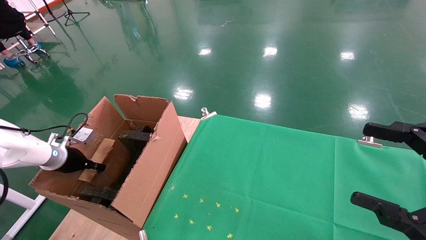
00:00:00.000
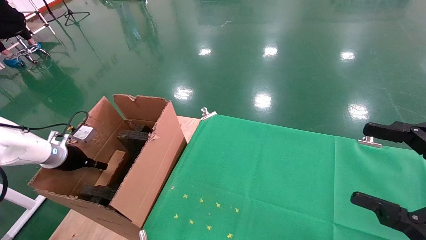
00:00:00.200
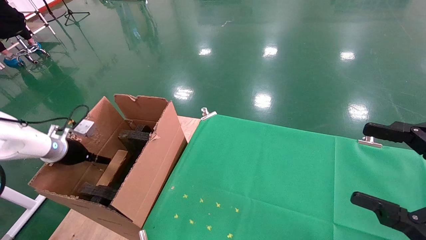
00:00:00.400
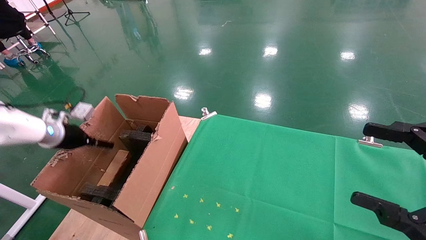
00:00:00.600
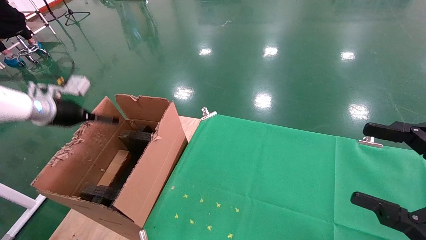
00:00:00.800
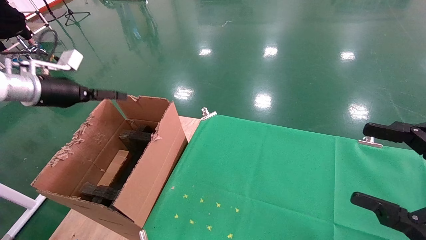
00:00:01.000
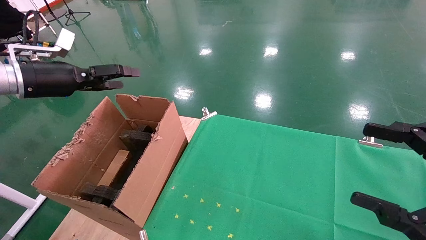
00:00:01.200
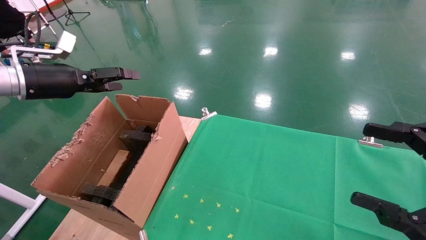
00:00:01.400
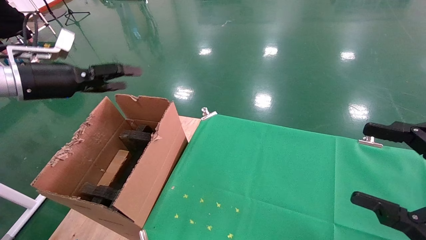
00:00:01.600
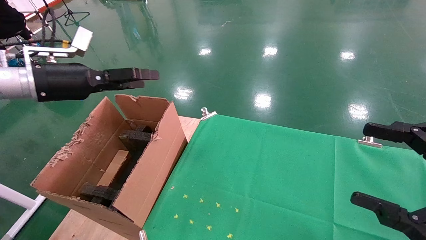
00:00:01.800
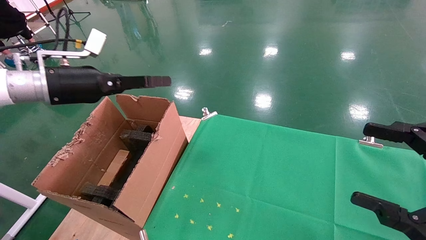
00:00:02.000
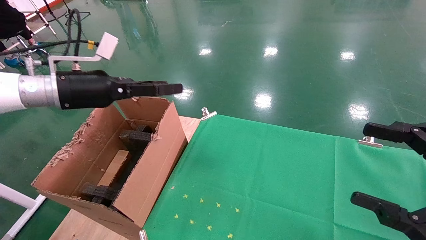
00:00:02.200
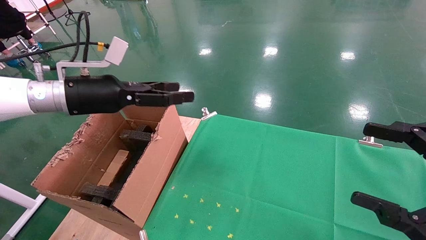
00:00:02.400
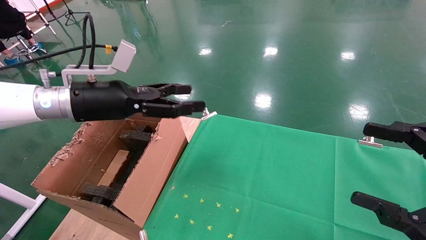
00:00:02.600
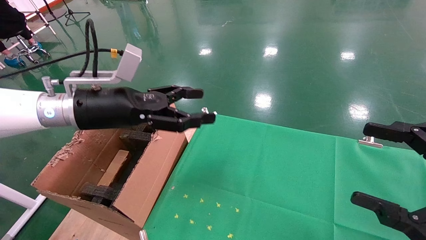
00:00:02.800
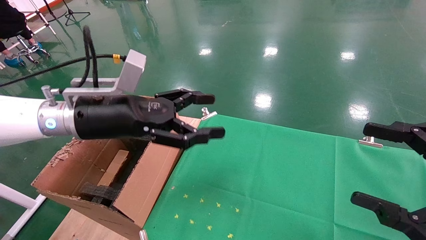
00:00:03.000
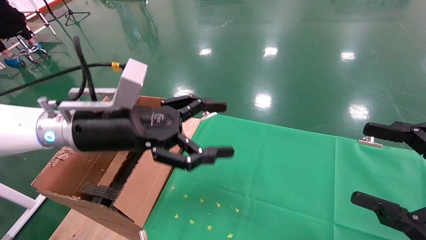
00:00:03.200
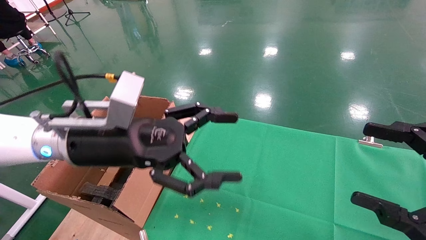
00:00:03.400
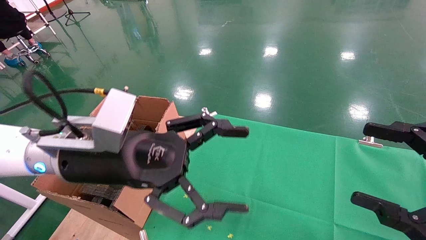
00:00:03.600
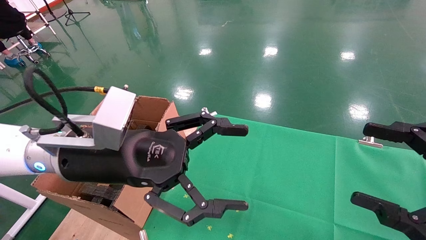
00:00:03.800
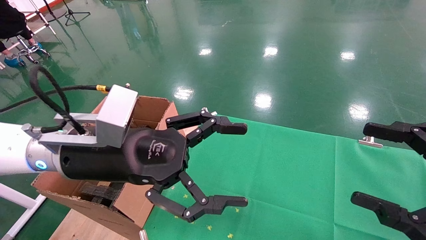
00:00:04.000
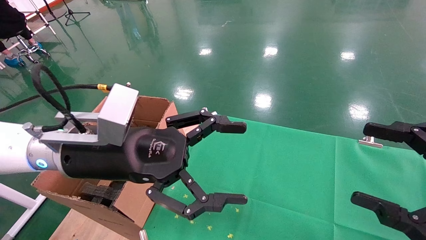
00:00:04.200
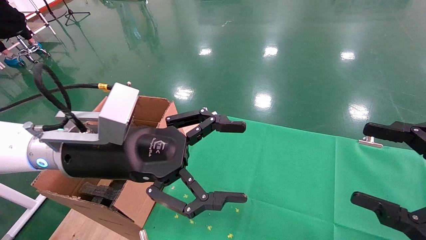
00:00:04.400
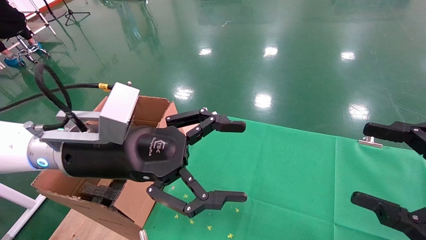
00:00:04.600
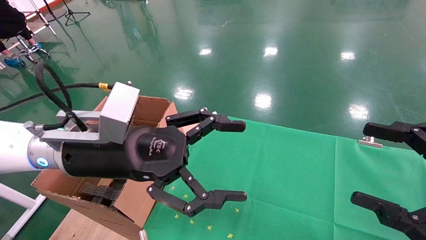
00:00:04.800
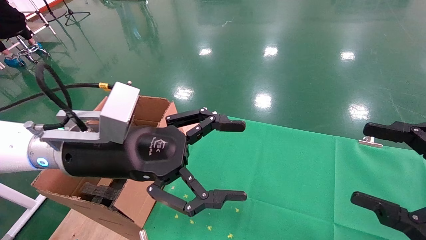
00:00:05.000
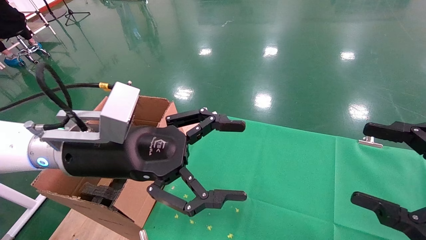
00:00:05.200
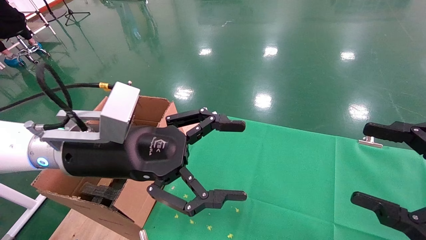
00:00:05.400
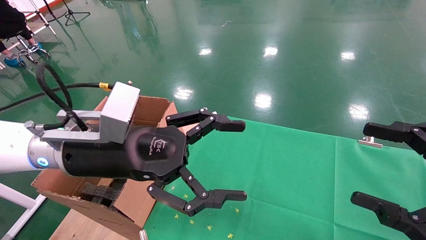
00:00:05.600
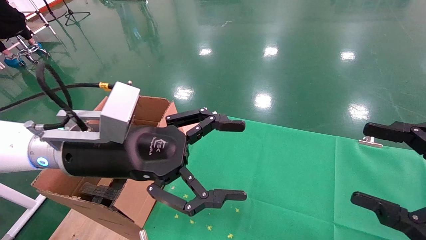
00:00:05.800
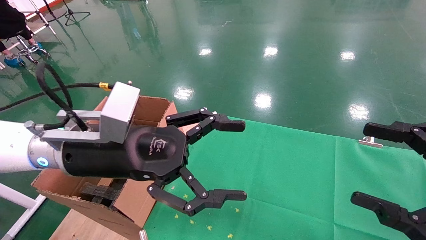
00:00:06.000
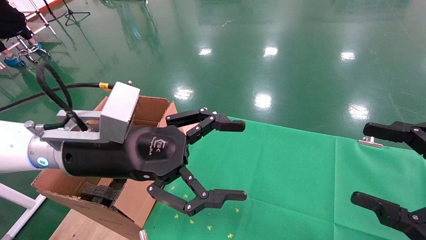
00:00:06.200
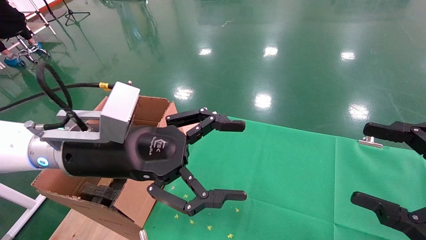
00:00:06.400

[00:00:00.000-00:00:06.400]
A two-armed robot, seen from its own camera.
Task of the whole recording: using a robotic arm to pick up a cardboard box and palace it the carton.
00:00:00.000 to 00:00:01.600: The left gripper is displaced upward and to the right by roughly 25 cm, and opens.
00:00:01.600 to 00:00:03.200: The left gripper travels to the right by about 20 cm.
00:00:03.200 to 00:00:04.800: The grippers stay close to where they were, moving slightly.
00:00:04.800 to 00:00:06.400: The two grippers keep their place.

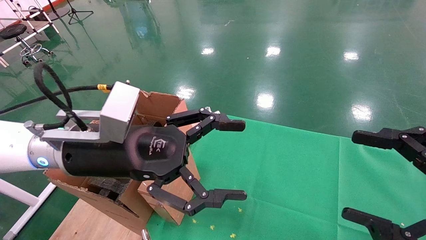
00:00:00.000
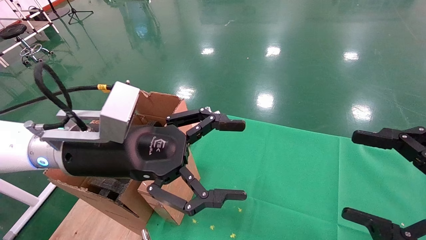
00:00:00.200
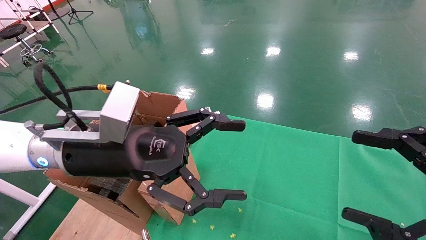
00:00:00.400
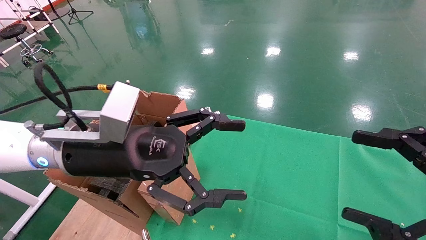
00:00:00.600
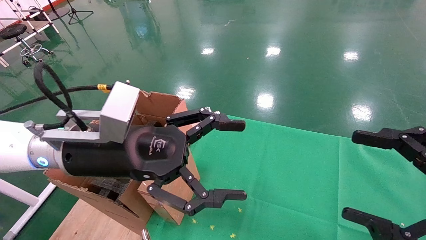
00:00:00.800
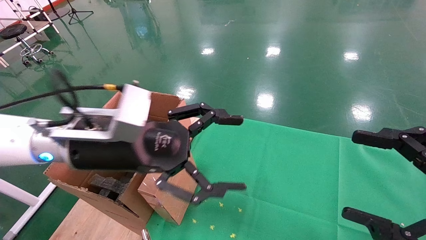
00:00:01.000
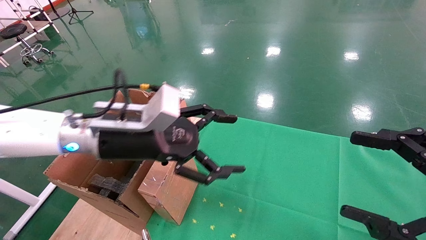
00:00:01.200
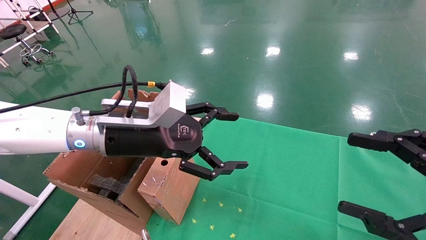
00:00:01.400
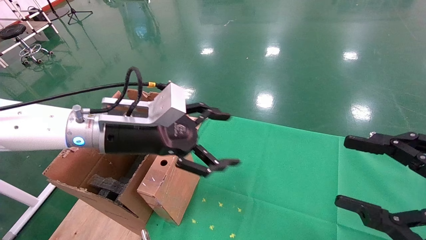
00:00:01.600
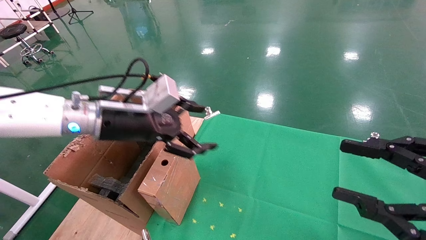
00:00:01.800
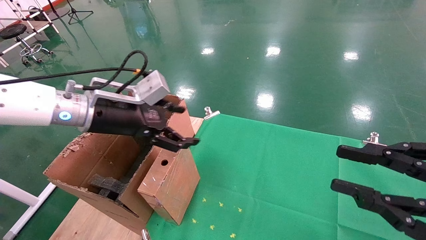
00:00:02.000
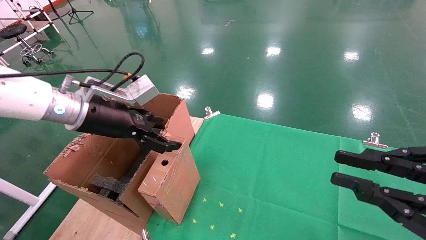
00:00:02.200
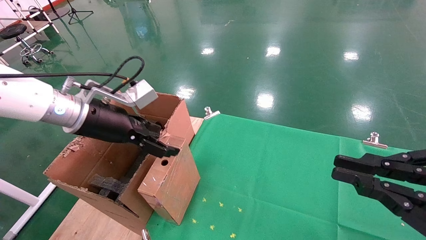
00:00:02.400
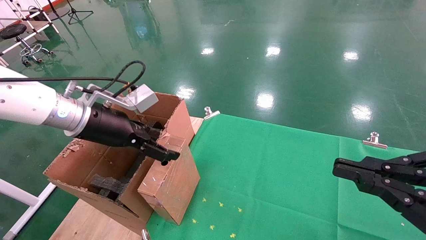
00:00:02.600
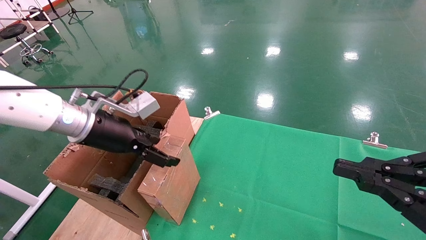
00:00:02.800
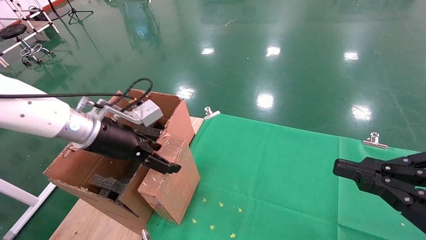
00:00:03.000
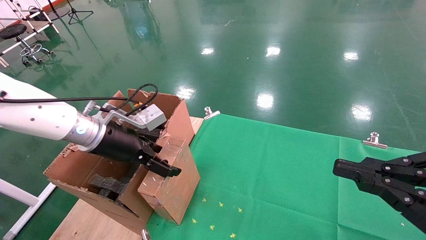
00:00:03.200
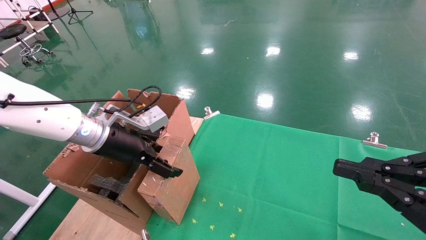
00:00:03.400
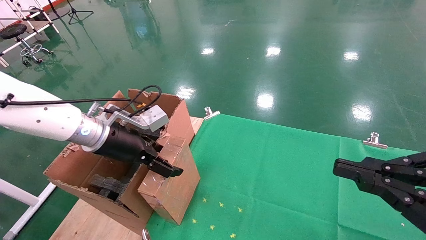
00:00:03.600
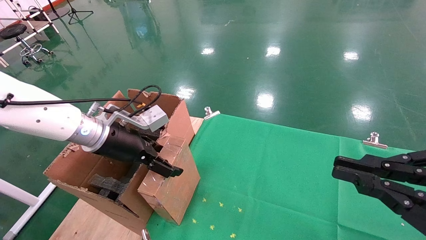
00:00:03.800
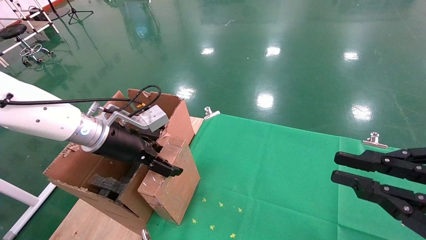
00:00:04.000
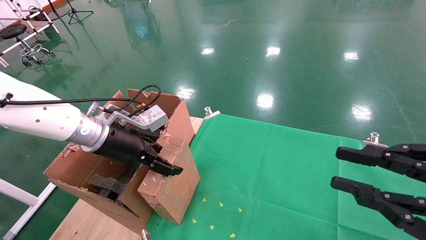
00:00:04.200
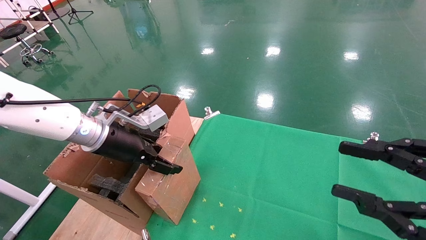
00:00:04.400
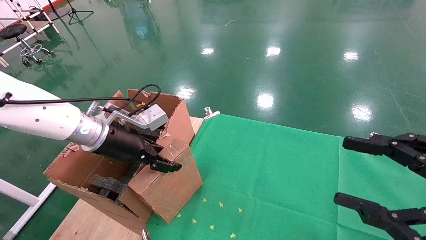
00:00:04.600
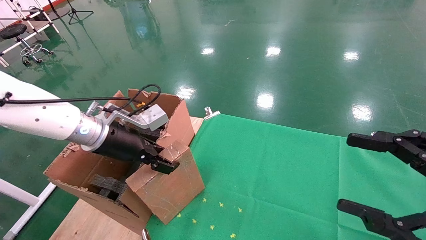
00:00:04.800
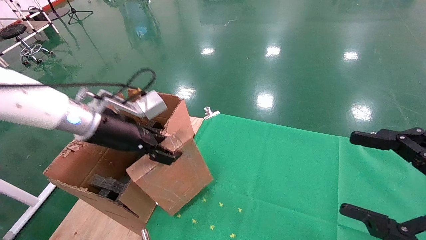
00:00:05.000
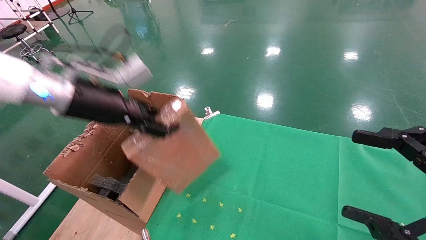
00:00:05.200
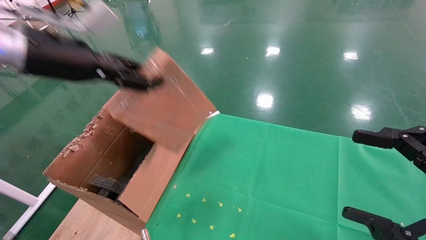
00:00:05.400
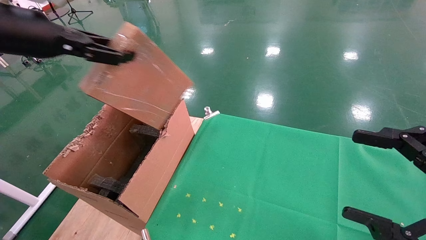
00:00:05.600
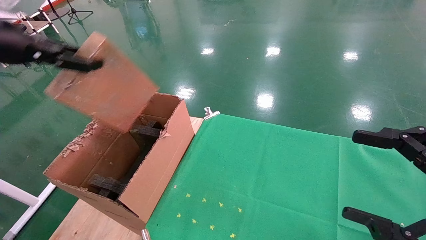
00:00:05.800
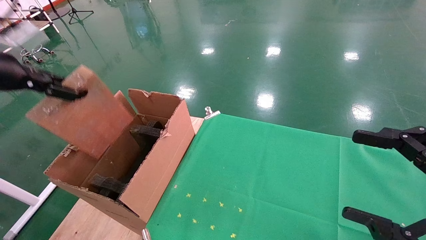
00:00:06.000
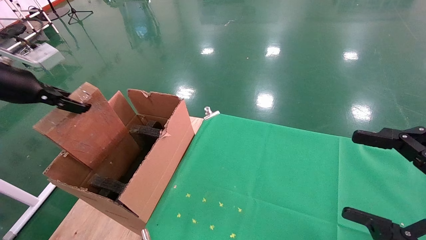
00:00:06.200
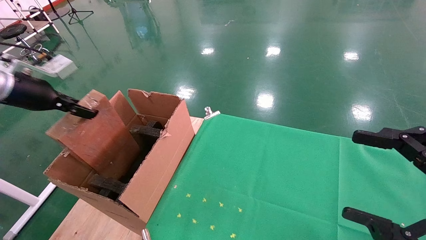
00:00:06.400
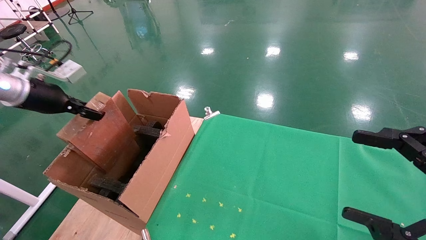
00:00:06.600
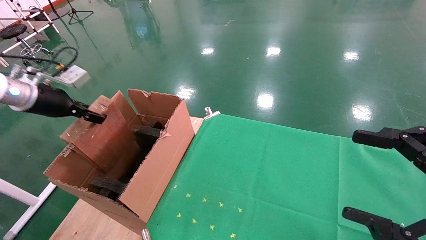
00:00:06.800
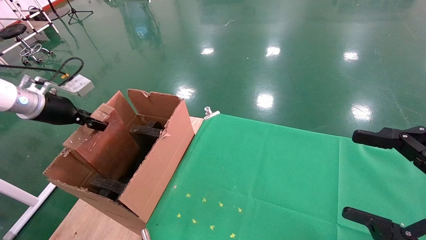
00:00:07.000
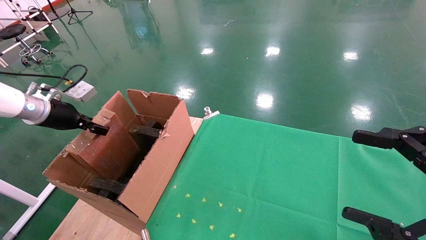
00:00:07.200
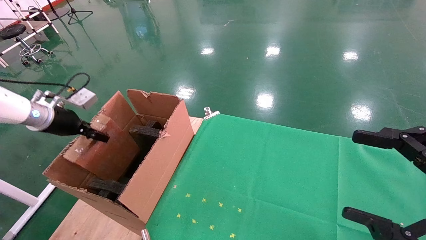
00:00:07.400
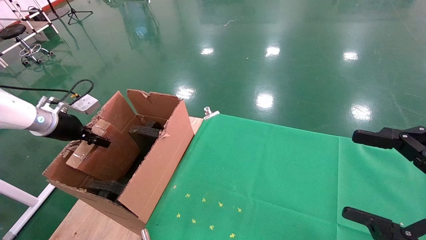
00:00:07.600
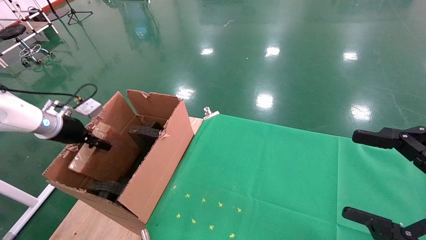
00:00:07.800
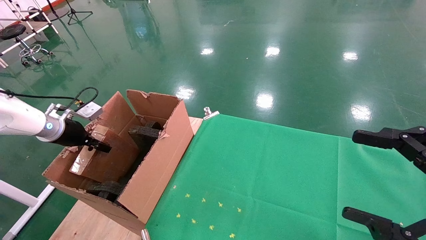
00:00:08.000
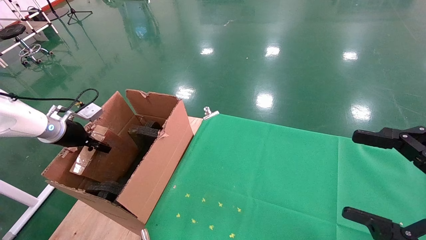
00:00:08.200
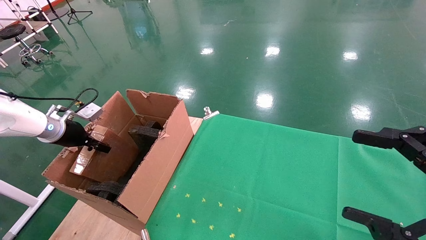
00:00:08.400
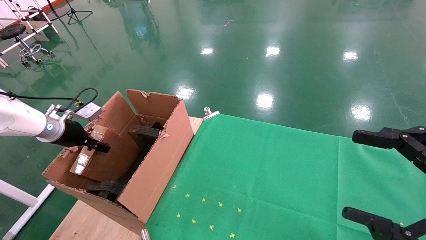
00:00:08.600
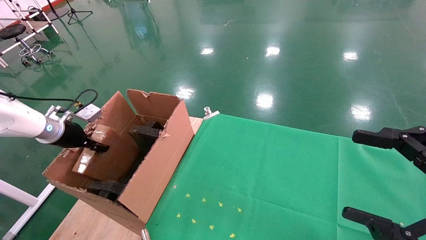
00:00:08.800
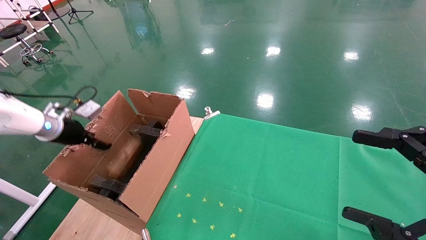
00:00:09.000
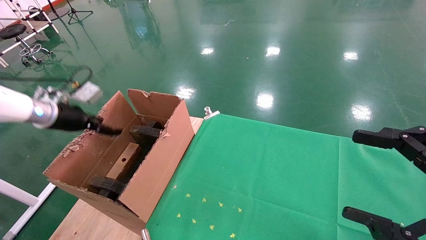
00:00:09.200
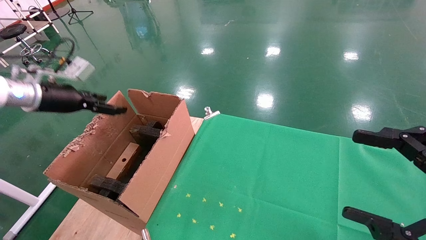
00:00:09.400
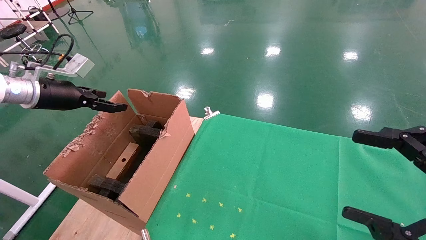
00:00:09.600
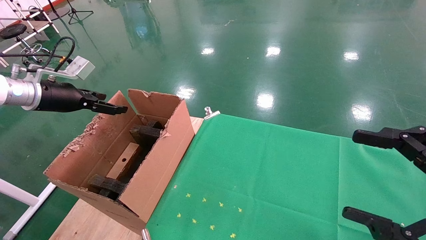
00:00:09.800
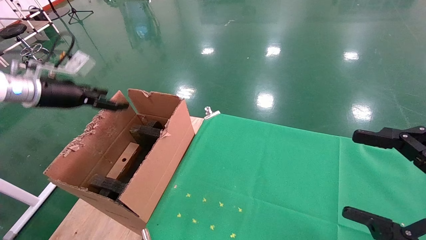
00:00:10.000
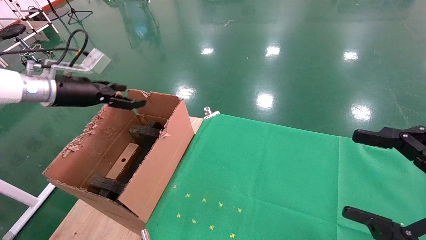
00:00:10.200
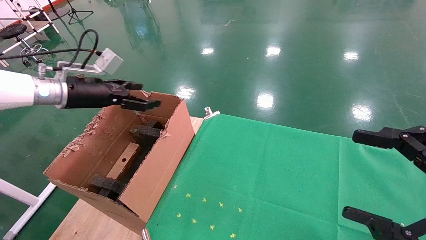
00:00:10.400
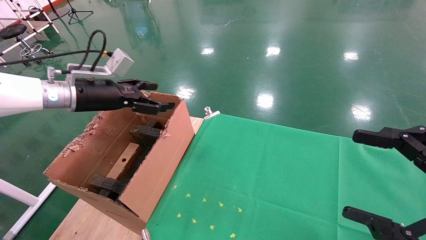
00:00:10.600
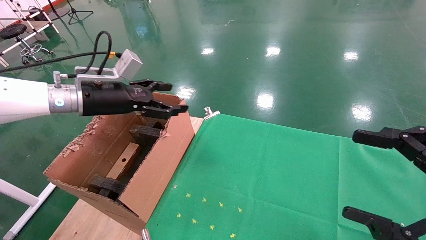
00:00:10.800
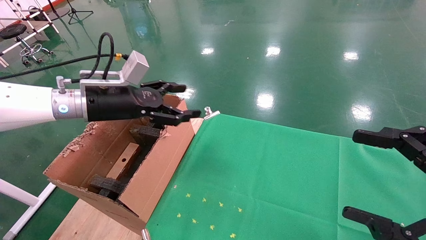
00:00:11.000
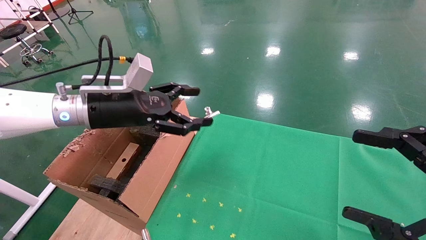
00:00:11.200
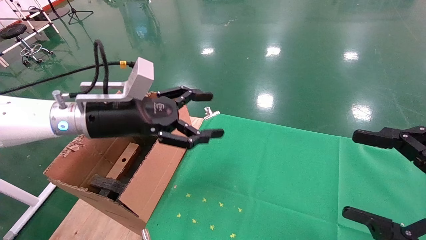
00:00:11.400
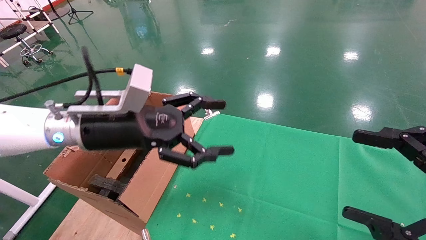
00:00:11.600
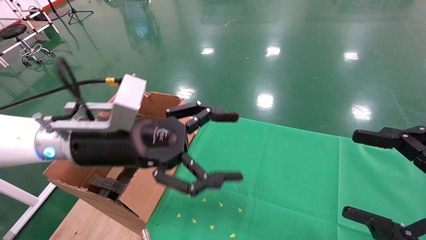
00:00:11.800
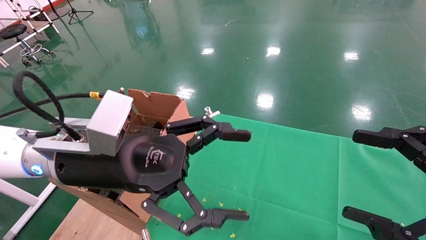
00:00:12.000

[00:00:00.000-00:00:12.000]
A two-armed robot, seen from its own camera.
Task of the whole recording: using a robotic arm to pick up a cardboard box and palace it the carton.
Step, 00:00:01.200 to 00:00:04.600: Pick up the mouse and the power cord paper box.
Step, 00:00:04.800 to 00:00:08.800: Place the mouse and the power cord paper box into the container.
00:00:00.000 to 00:00:01.600: The left gripper is displaced forward by some 5 cm.
00:00:01.600 to 00:00:03.000: The right gripper closes its fingers. Meanwhile the left gripper travels to the left by roughly 5 cm.
00:00:03.000 to 00:00:04.400: There are only small adjustments of the grippers.
00:00:04.400 to 00:00:06.000: The left gripper travels to the left and upward by some 25 cm, and closes. Meanwhile the right gripper opens its fingers.
00:00:06.000 to 00:00:07.600: The left gripper heads downward and forward, covering some 20 cm.
00:00:07.600 to 00:00:09.000: The left gripper opens.
00:00:09.000 to 00:00:10.400: The left gripper heads to the right and upward, covering approximately 10 cm, and opens.
00:00:10.400 to 00:00:12.000: The left gripper travels to the right and backward by about 25 cm.
